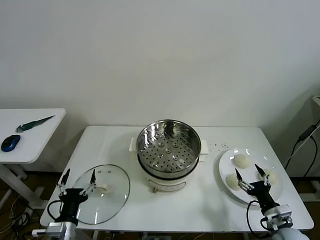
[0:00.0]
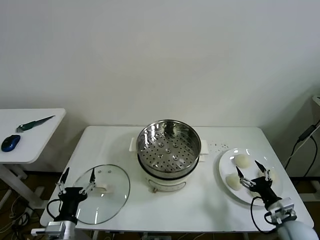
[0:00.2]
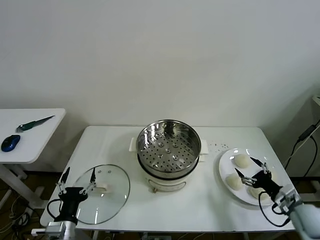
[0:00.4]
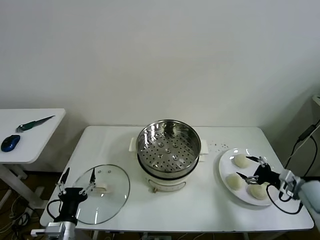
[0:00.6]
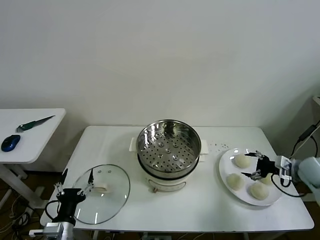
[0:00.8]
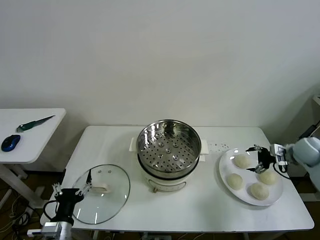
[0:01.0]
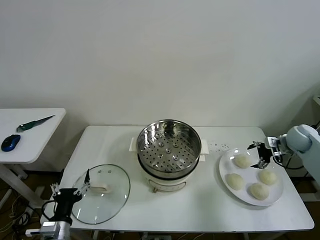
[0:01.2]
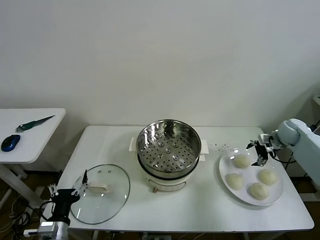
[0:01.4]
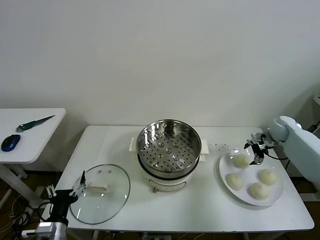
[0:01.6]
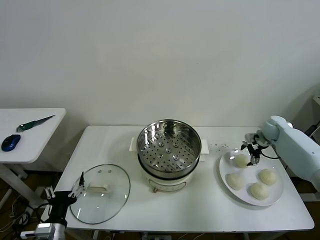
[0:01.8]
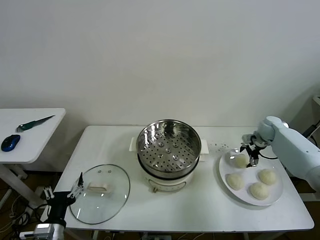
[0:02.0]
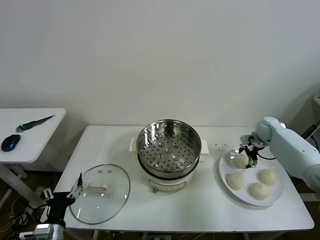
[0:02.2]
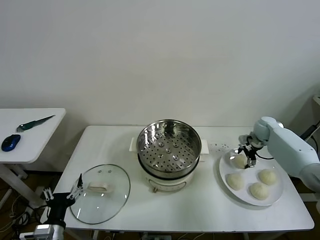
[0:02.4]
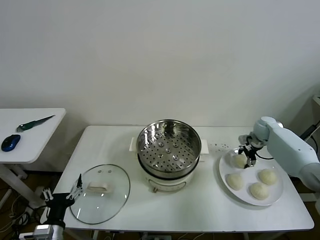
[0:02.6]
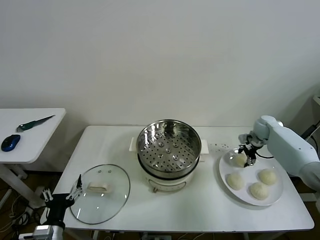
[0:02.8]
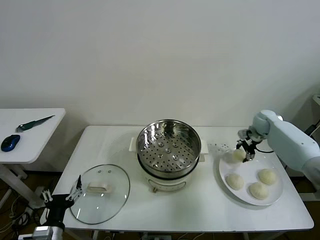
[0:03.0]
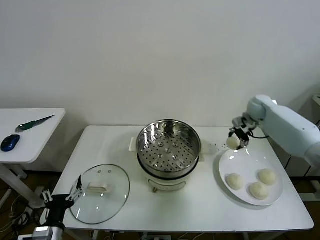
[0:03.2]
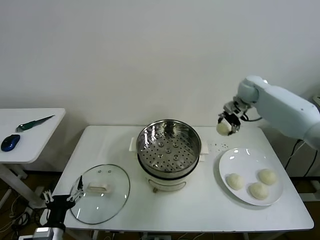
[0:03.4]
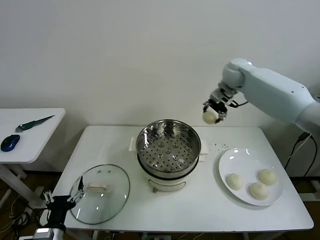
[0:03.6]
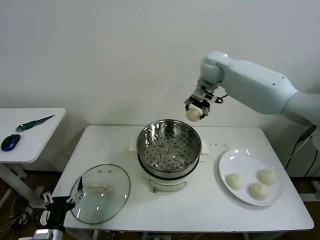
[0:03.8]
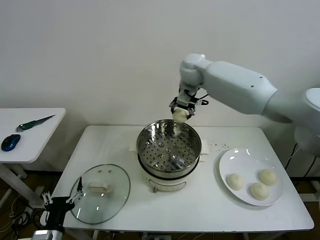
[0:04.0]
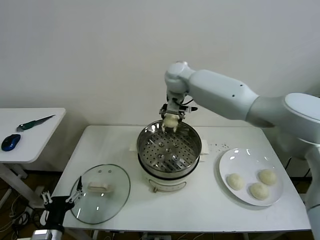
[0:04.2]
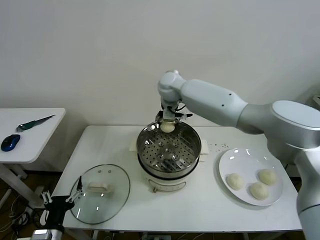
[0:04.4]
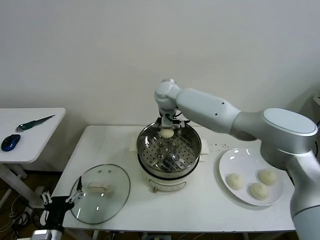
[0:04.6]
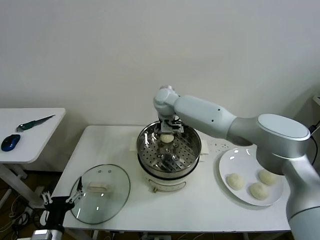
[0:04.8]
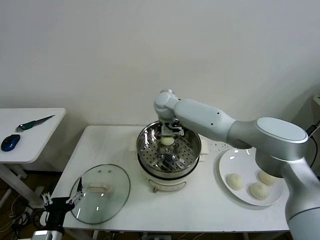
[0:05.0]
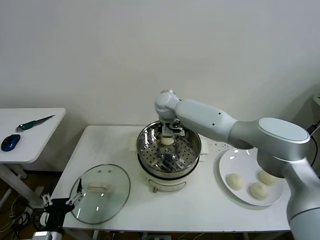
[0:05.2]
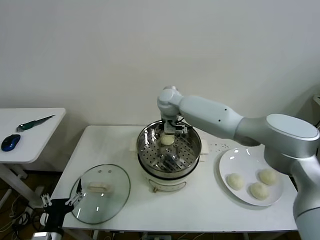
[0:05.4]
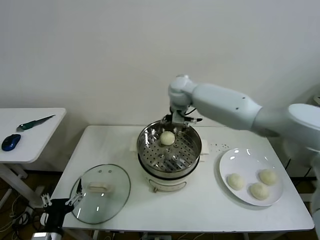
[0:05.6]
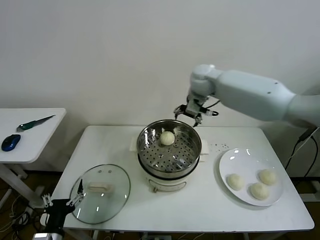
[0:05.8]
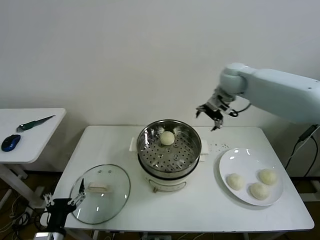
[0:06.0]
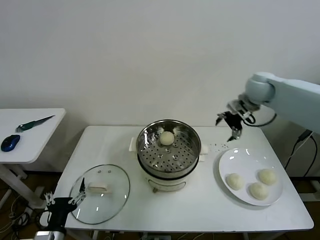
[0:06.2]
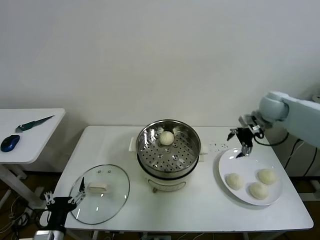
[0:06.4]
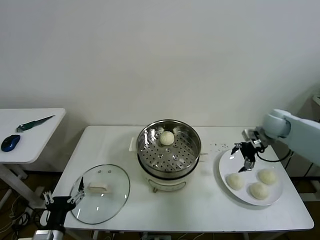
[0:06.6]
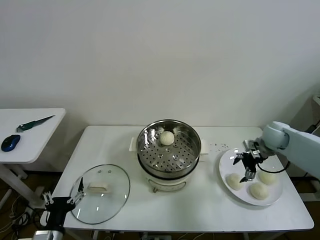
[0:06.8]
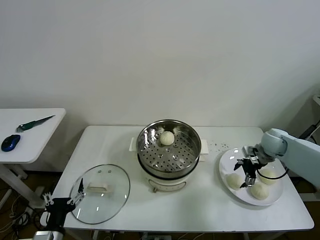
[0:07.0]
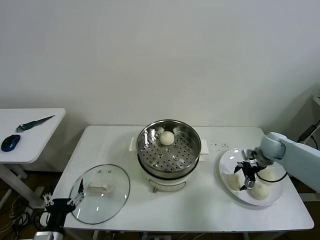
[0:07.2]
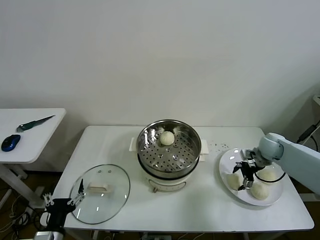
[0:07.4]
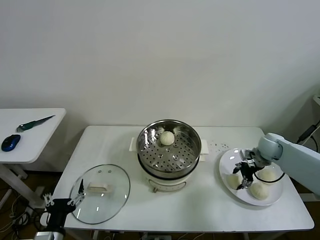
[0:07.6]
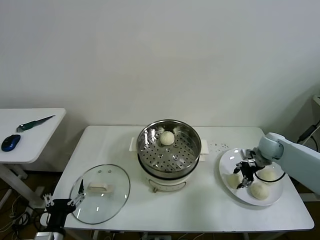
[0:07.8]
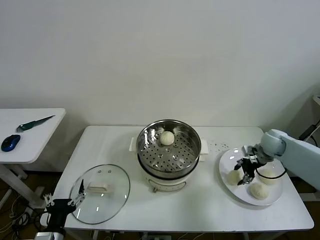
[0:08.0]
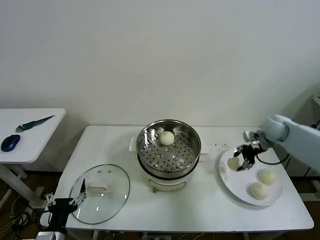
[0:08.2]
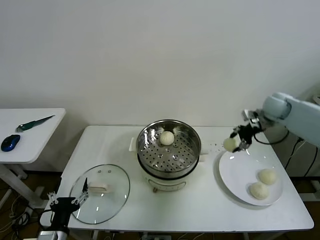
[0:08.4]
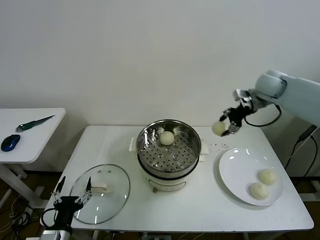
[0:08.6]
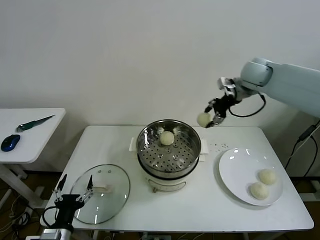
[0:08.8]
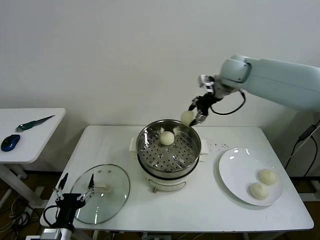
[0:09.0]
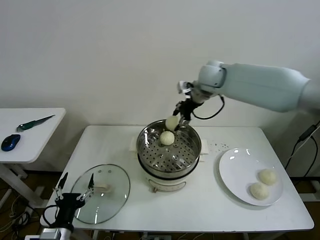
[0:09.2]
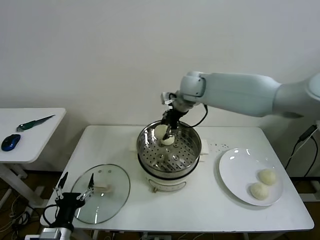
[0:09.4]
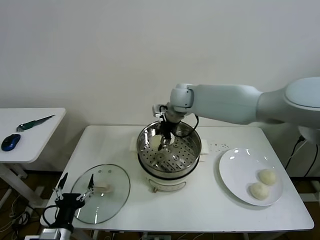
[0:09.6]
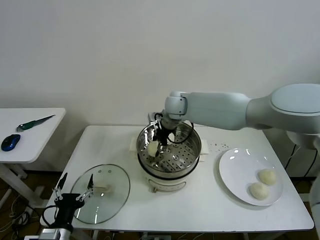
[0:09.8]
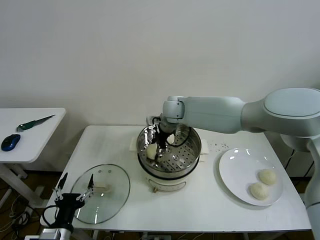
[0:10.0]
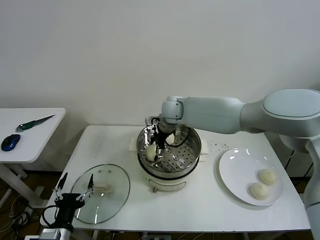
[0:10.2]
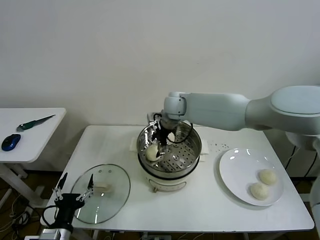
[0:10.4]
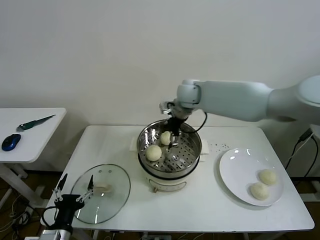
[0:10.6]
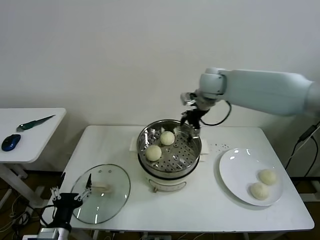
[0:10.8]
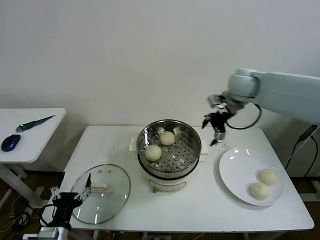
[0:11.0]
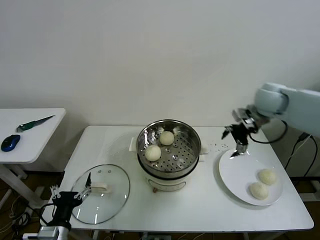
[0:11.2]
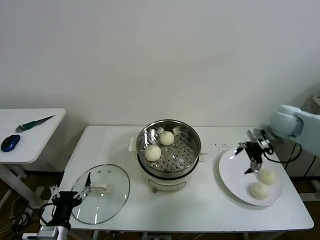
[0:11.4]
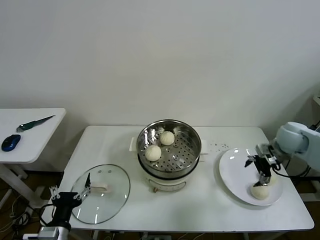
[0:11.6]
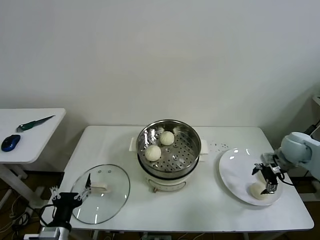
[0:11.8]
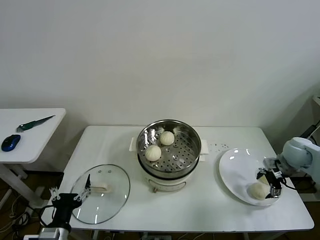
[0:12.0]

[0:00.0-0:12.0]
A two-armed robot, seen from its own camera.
Task of the whole recording: take steamed baozi put them in steamer then cover it.
Step, 0:00.0 to 0:02.8: Grasp the baozi in the plate with right gripper.
Step, 0:03.0 to 0:05.2: Place the baozi on the steamer with right gripper.
Step, 0:05.4 to 0:07.4: Grasp the baozi in the plate with right gripper.
Step, 0:07.8 to 0:10.2: Place the baozi on the steamer with right gripper.
0:01.6 to 0:03.0: The right gripper moves to the left, some 5 cm, and closes.
0:03.0 to 0:04.4: The right gripper heads to the left, covering about 40 cm.
0:04.4 to 0:06.0: The right gripper heads to the right, covering approximately 25 cm, and opens up.
0:06.0 to 0:07.6: The right gripper moves downward and to the right, roughly 25 cm, and closes.
0:07.6 to 0:09.0: The right gripper moves upward and to the left, about 35 cm.
0:09.0 to 0:10.4: The right gripper moves to the left and downward, roughly 15 cm, and opens up.
0:10.4 to 0:12.0: The right gripper goes some 40 cm to the right.

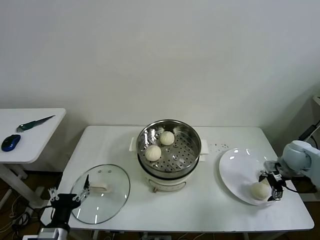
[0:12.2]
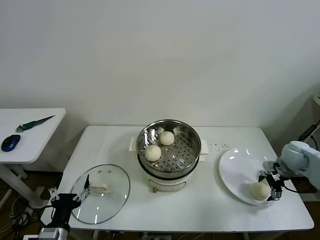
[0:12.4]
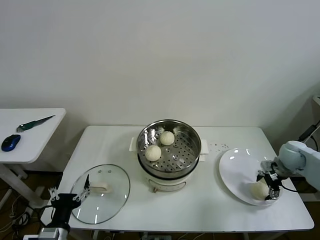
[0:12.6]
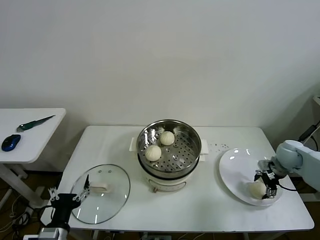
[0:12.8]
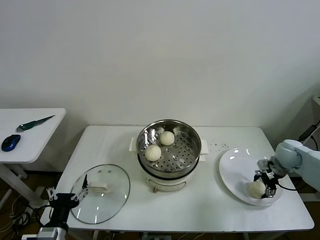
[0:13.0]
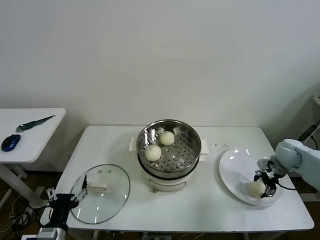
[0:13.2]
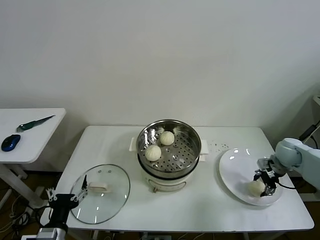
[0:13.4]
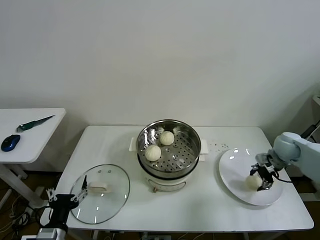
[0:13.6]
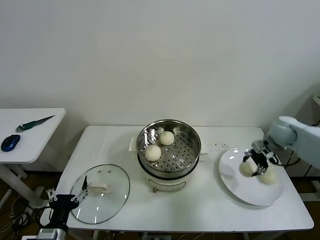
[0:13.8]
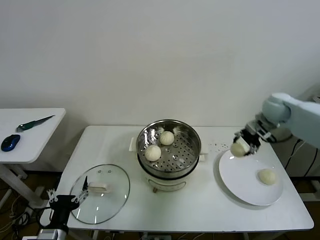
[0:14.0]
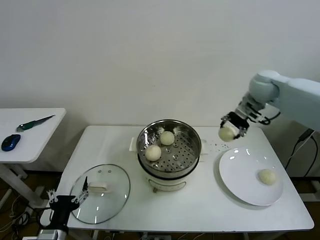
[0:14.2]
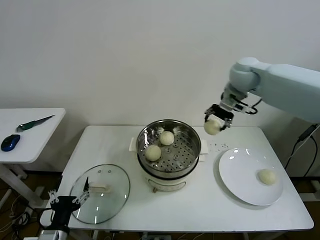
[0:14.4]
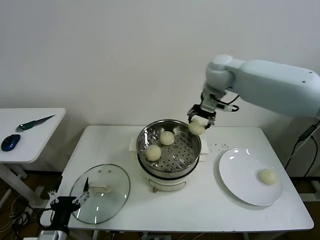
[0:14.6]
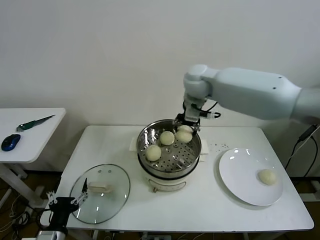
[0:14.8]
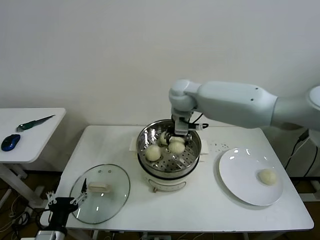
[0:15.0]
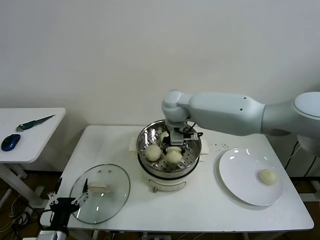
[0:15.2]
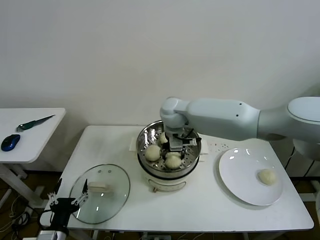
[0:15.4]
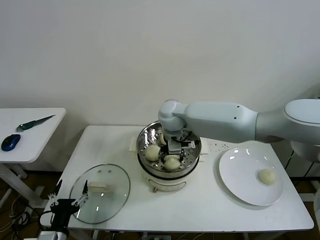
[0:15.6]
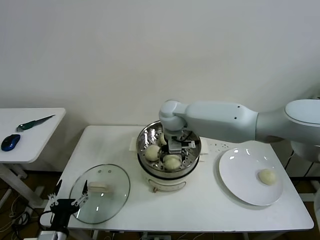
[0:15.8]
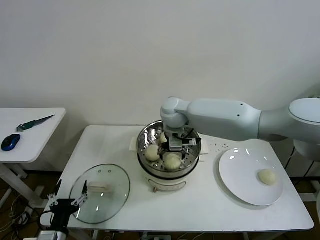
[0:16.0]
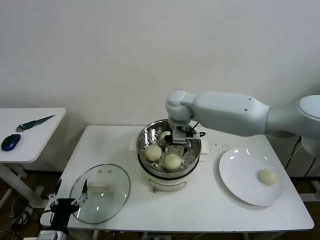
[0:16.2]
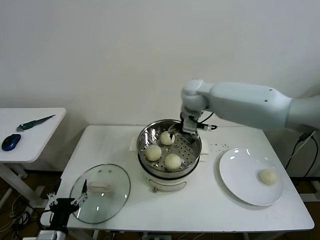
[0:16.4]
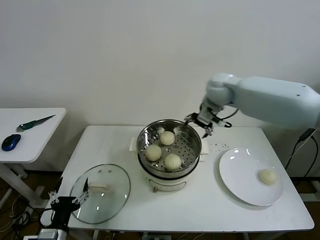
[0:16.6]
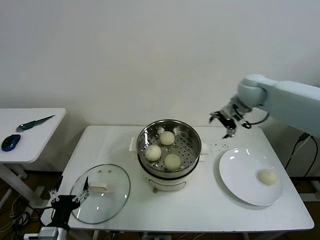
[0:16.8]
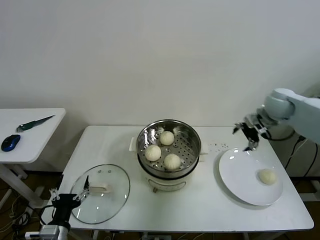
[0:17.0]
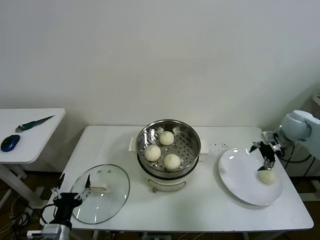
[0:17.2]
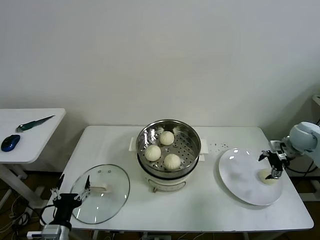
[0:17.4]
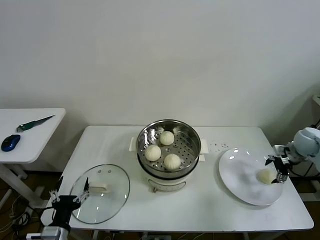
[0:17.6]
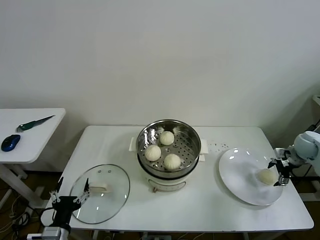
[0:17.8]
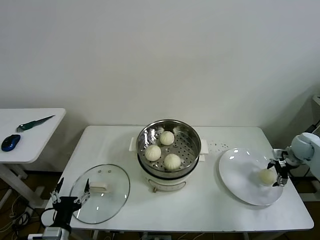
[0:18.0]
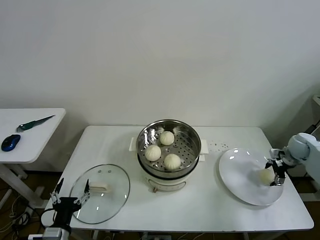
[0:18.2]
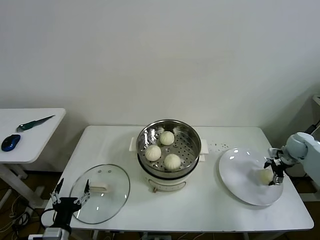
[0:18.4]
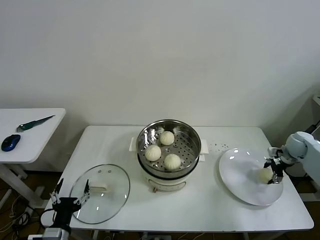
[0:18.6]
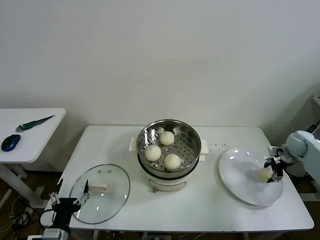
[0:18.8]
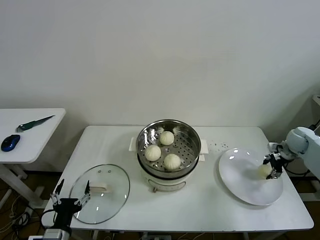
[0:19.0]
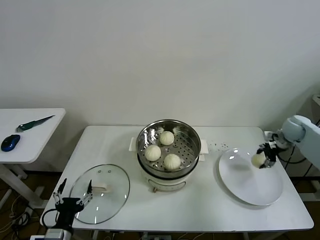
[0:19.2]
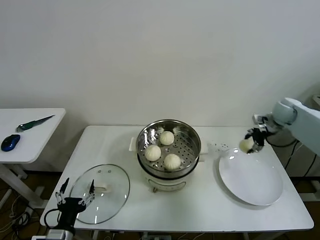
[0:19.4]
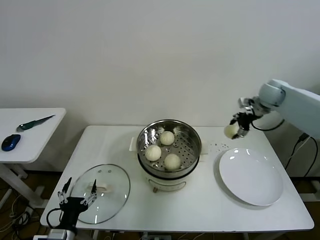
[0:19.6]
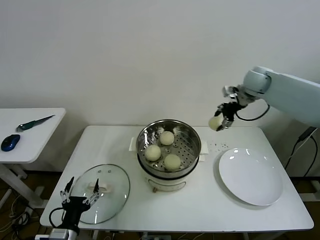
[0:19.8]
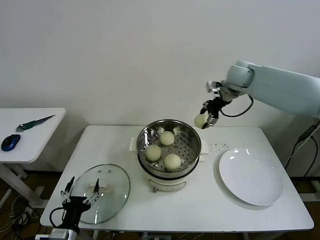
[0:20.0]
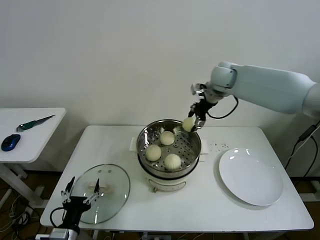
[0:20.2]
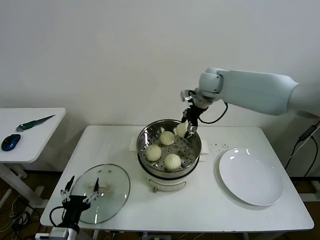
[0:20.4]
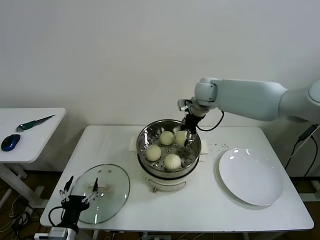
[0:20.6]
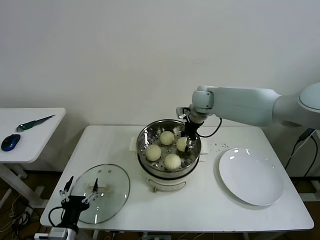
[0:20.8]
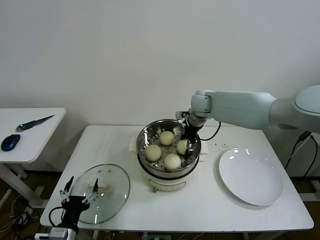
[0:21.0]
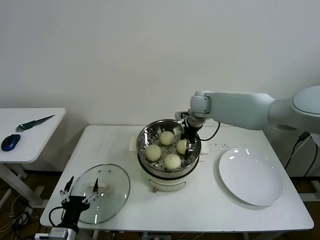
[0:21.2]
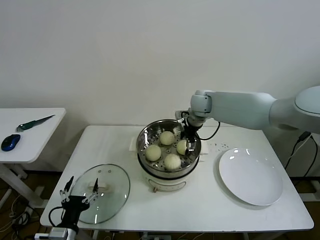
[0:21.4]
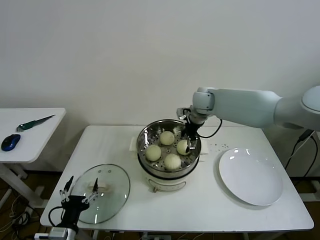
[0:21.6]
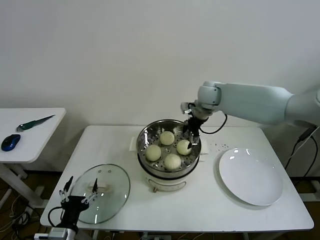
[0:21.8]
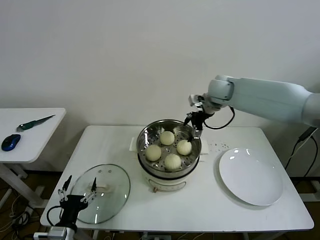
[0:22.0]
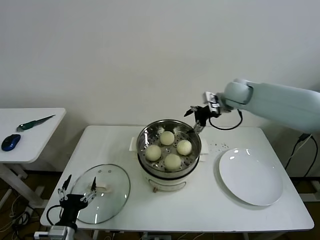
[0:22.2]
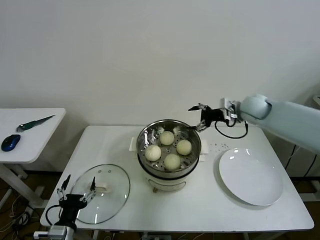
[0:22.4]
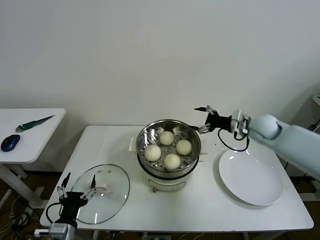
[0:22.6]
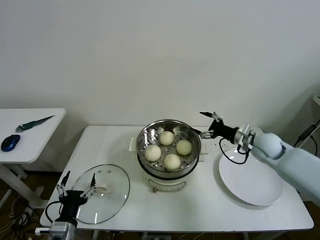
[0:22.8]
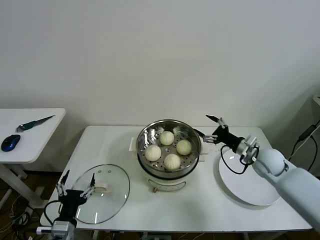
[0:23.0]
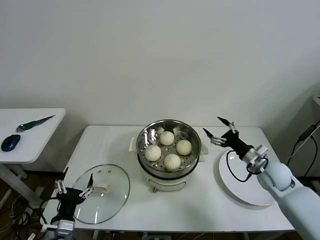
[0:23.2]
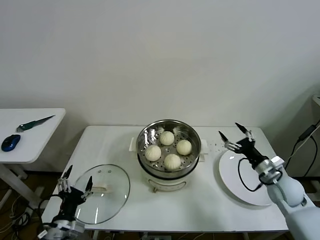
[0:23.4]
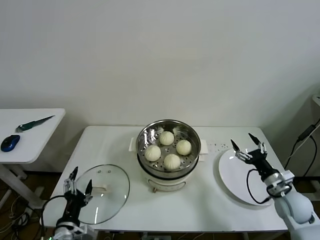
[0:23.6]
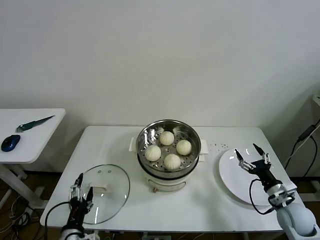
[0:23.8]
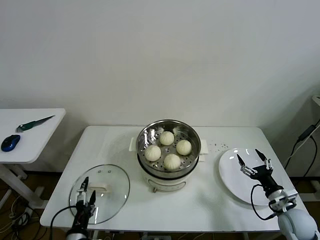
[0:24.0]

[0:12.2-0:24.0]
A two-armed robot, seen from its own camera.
Task of the whole recording: take steamed baozi put them in steamer then cover it.
Step, 0:13.2 to 0:16.0: Place the baozi on the steamer with right gripper.
Step, 0:16.2 to 0:18.6: Grasp the baozi in the plate with right gripper.
Step, 0:18.8 to 0:21.6: Place the baozi on the steamer with right gripper.
0:12.2 to 0:13.6: The right gripper changes place by some 5 cm, and closes up.
0:13.6 to 0:15.2: The right gripper heads to the left, covering about 40 cm.
0:15.2 to 0:16.6: The right gripper is displaced to the right by roughly 15 cm, and opens up.
0:16.6 to 0:18.2: The right gripper heads to the right and downward, covering approximately 40 cm.
0:18.2 to 0:19.6: The right gripper heads upward, to the left and forward, covering roughly 25 cm, and closes up.
0:19.6 to 0:21.0: The right gripper travels to the left by approximately 25 cm.
0:21.0 to 0:22.6: The right gripper travels to the right and backward by roughly 20 cm, and opens its fingers.
0:22.6 to 0:24.0: The right gripper travels backward and downward by some 30 cm.
